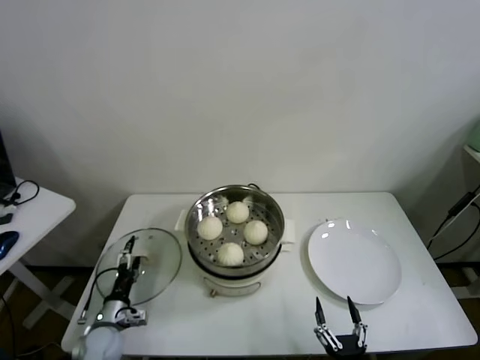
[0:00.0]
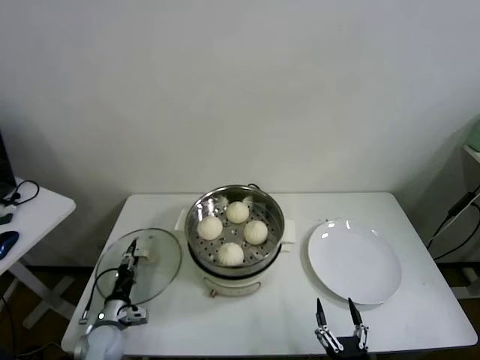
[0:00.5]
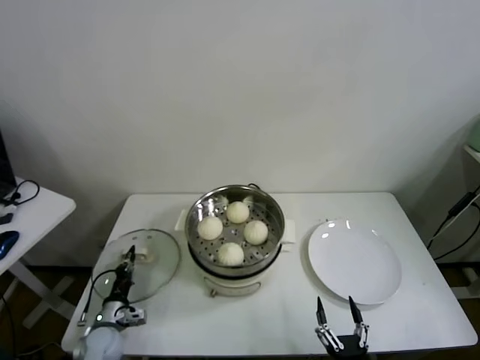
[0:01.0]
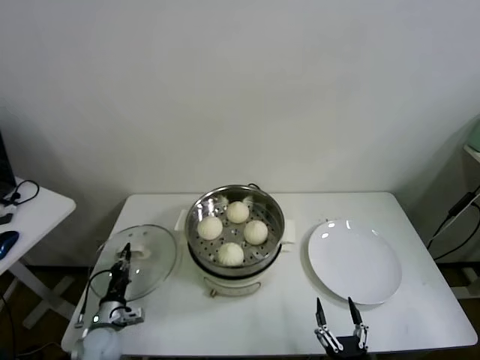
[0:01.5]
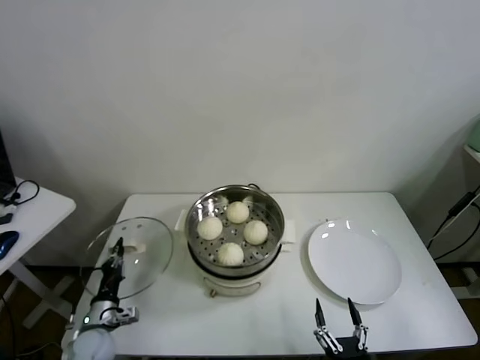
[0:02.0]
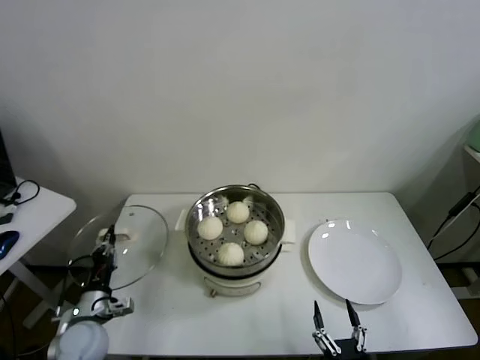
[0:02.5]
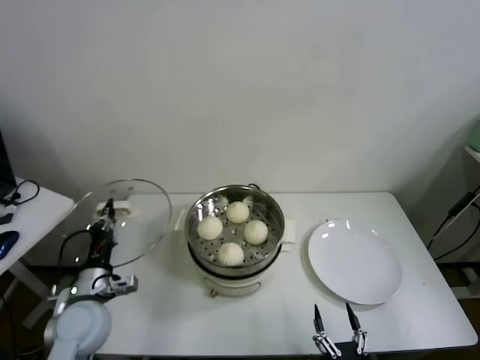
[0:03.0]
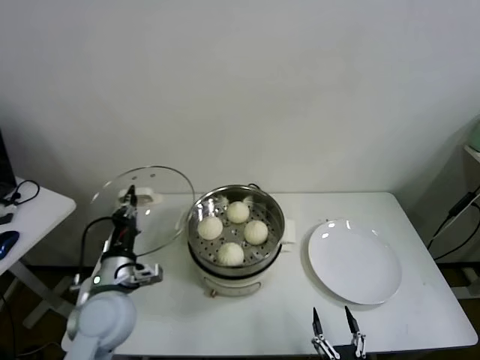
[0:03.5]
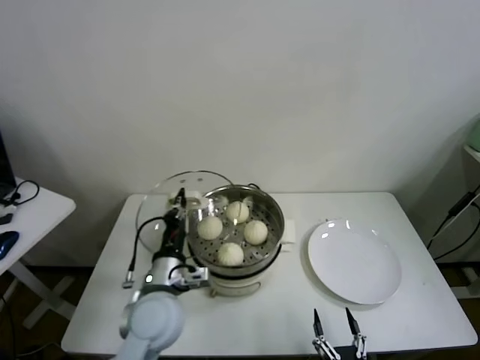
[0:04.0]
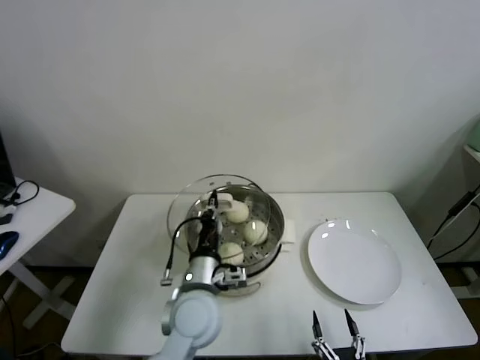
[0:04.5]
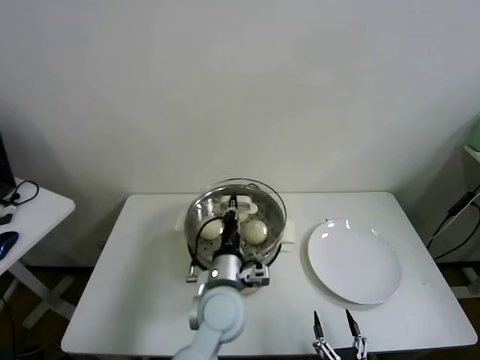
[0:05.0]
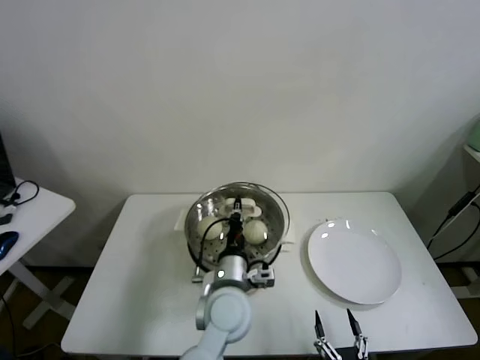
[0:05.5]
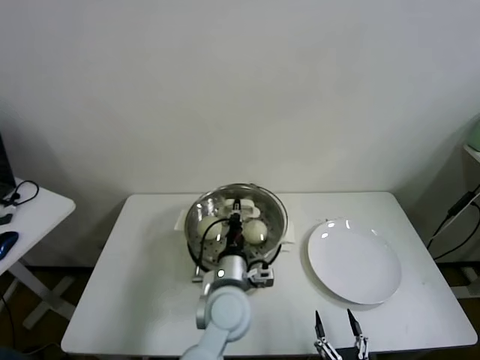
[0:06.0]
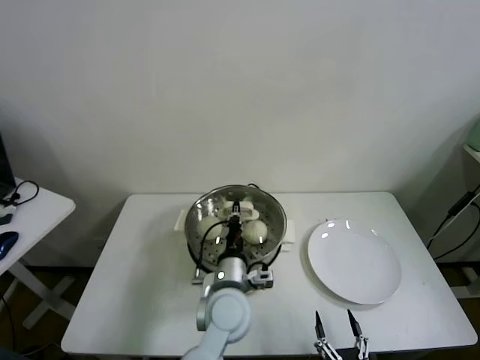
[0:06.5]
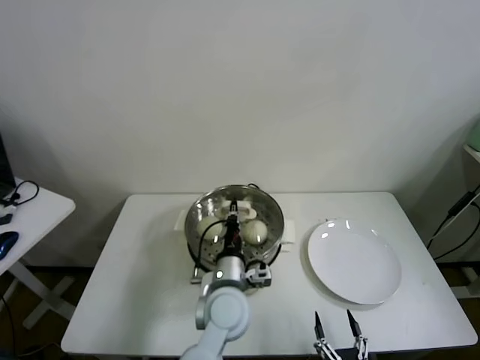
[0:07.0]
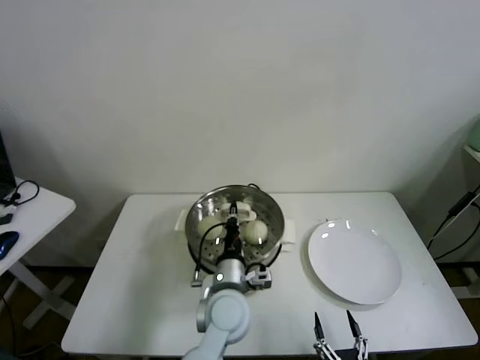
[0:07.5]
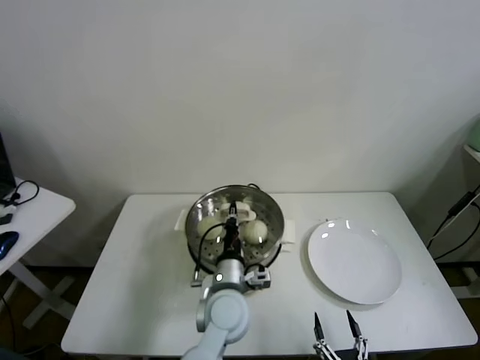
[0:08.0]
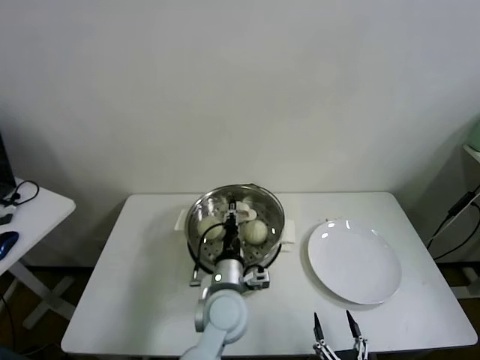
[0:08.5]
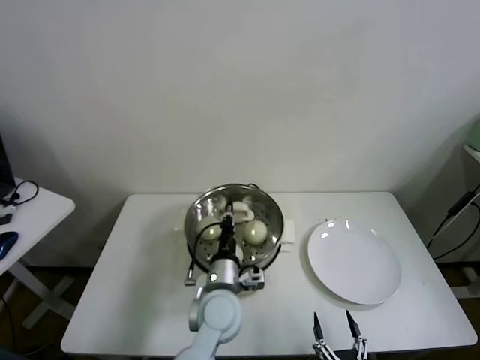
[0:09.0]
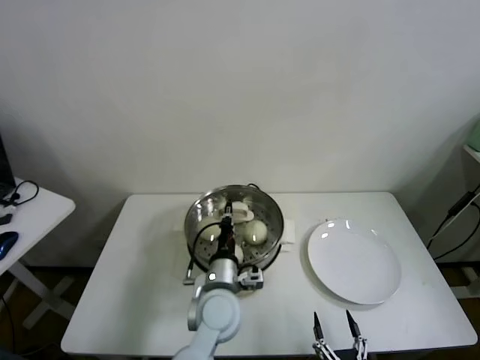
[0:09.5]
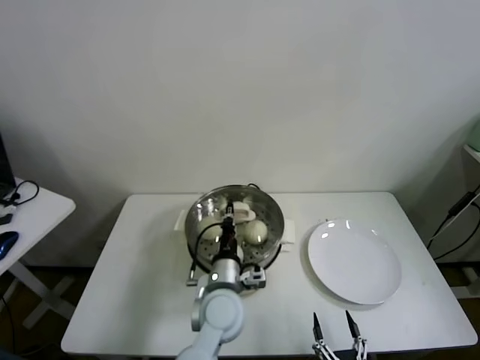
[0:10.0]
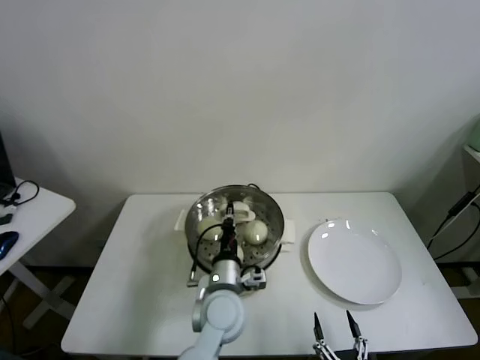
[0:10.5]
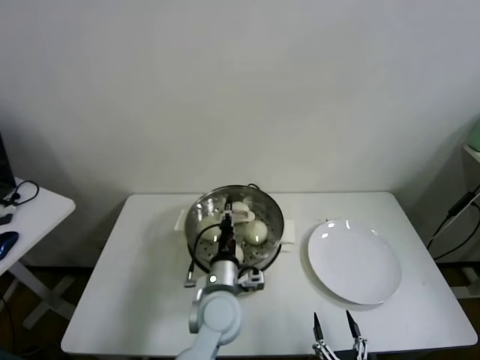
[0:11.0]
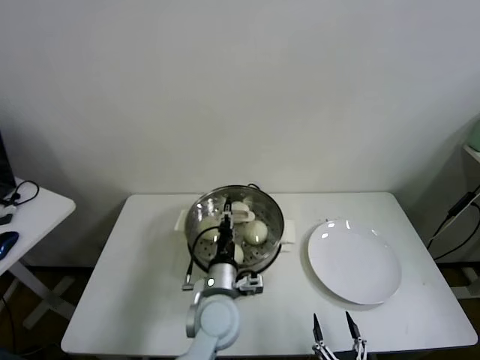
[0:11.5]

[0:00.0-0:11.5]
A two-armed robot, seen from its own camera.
Task of the whole recording: take steamed baozi put them in steamer.
0:00.0 to 0:02.0: The left gripper closes up.
0:02.0 to 0:04.0: The left gripper shifts about 25 cm upward and to the right.
0:04.0 to 0:06.0: The left gripper travels to the right by about 15 cm.
0:06.0 to 0:07.5: Neither gripper changes place.
0:07.5 to 0:09.5: The grippers make only small movements.
0:09.5 to 0:11.5: The left gripper opens its fingers.

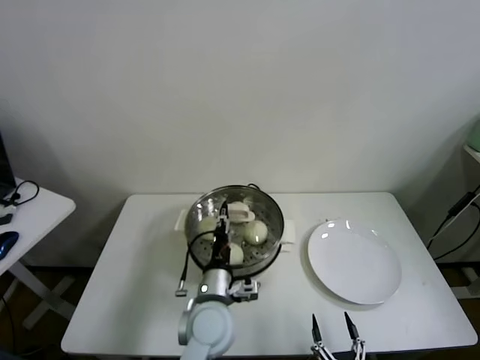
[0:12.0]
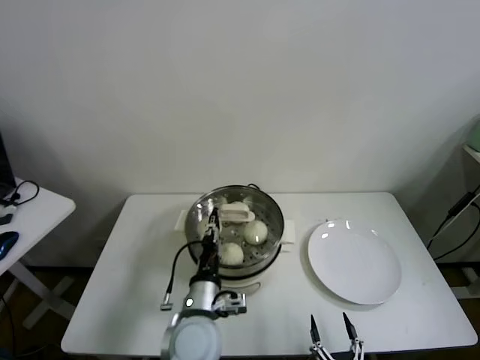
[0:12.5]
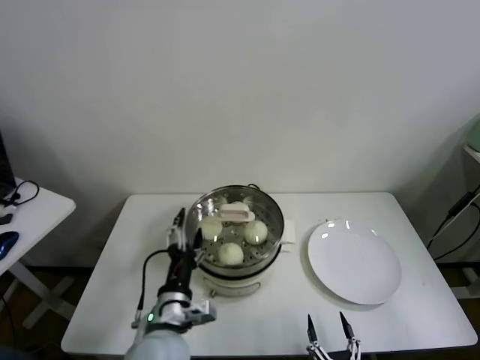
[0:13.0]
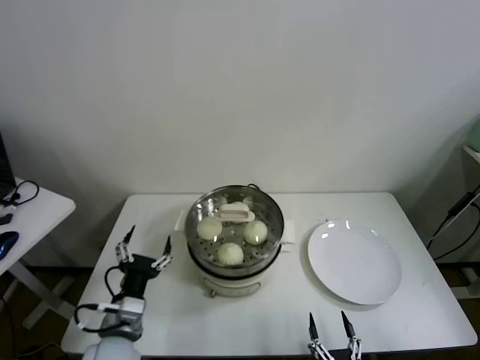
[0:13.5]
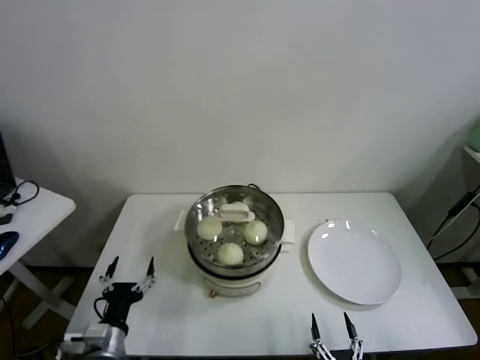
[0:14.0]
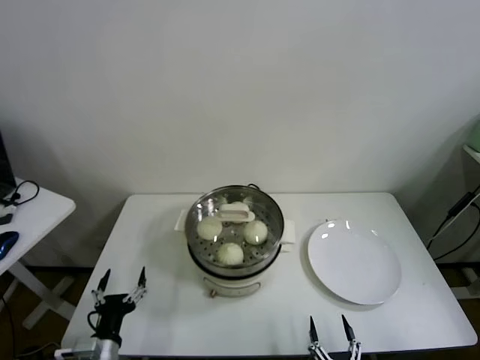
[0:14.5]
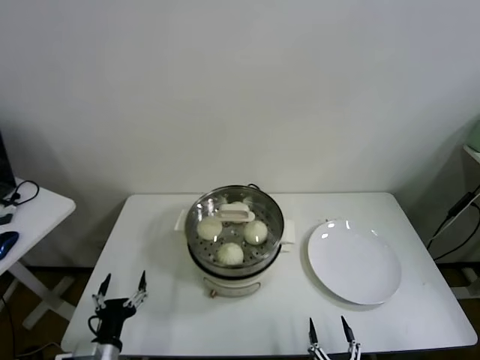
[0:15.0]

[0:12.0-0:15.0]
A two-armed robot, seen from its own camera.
Task of the whole recording: take steamed baozi put them in steamer.
0:12.0 to 0:13.5: The left gripper goes some 15 cm to the left and backward, and opens.
0:13.5 to 0:15.0: The left gripper shifts roughly 15 cm downward, to the left and backward.
